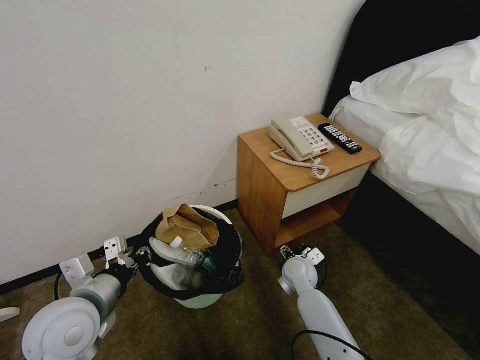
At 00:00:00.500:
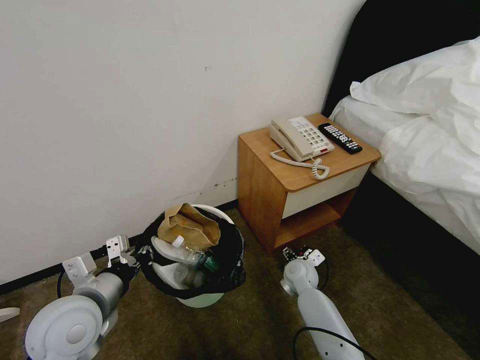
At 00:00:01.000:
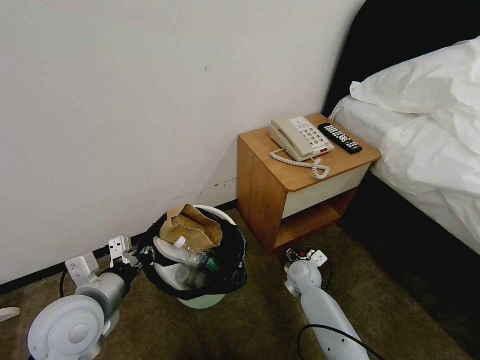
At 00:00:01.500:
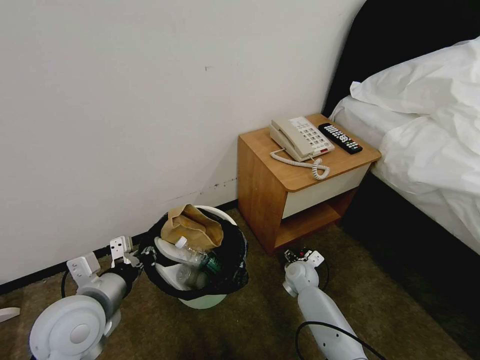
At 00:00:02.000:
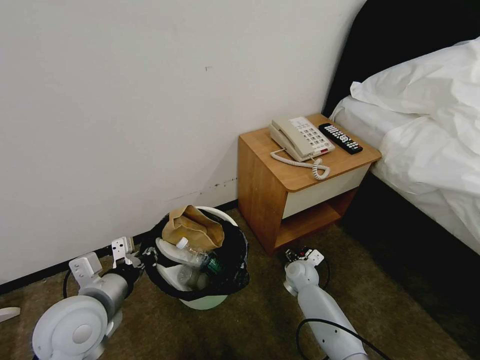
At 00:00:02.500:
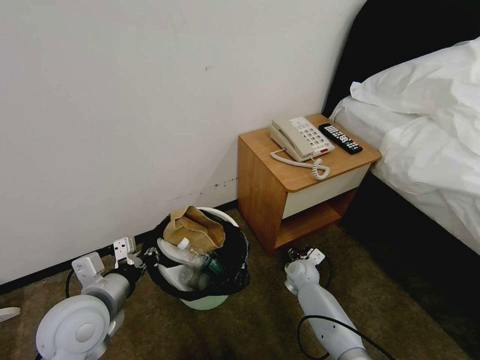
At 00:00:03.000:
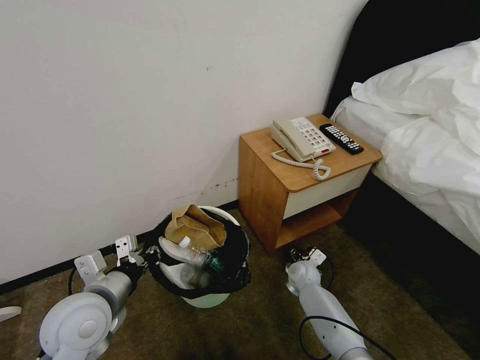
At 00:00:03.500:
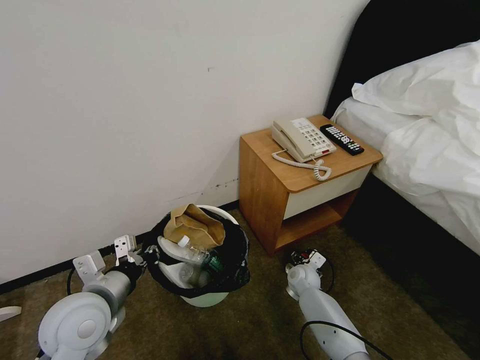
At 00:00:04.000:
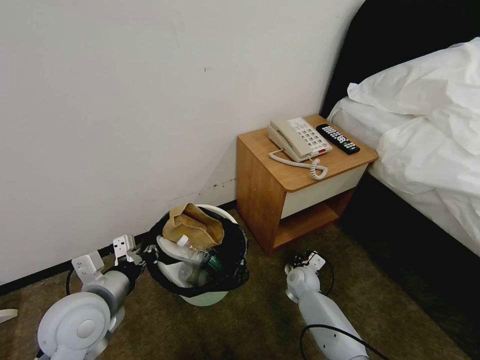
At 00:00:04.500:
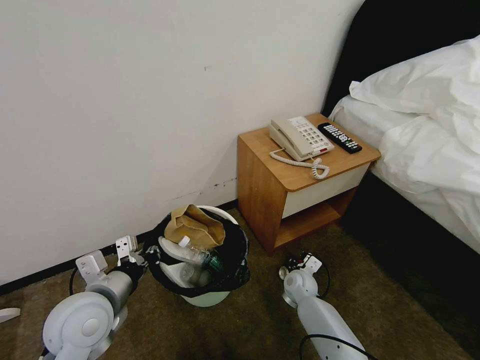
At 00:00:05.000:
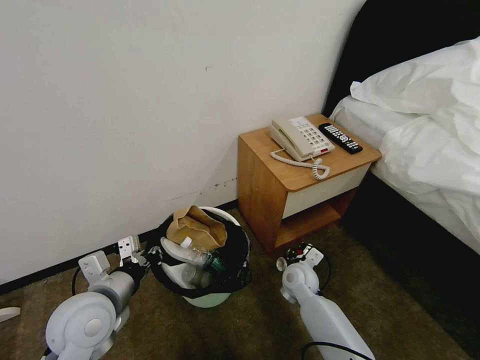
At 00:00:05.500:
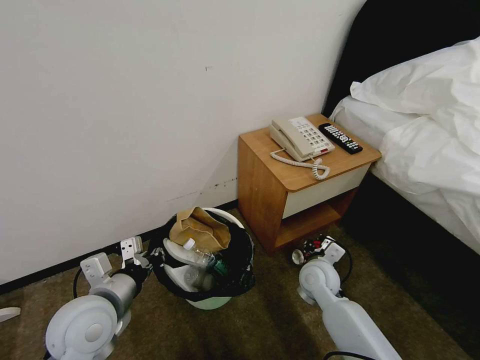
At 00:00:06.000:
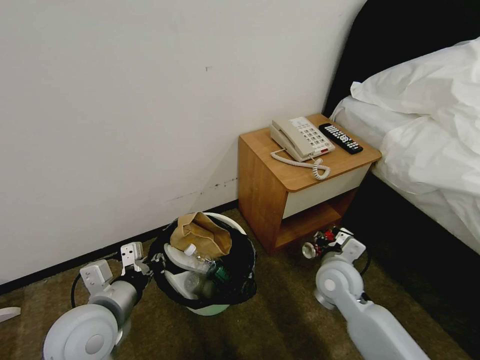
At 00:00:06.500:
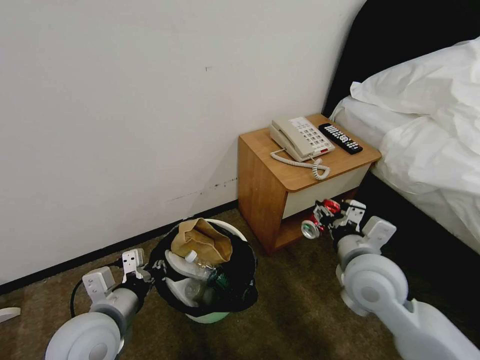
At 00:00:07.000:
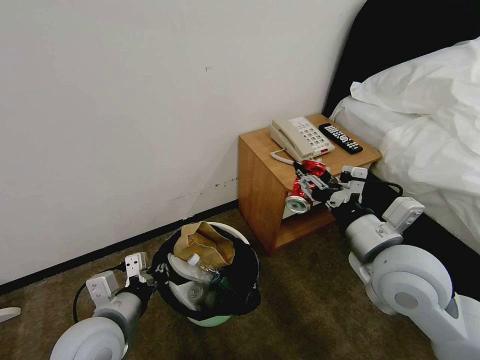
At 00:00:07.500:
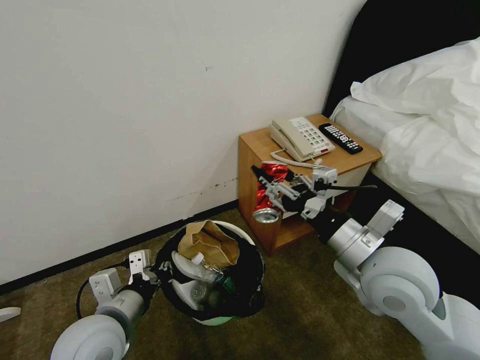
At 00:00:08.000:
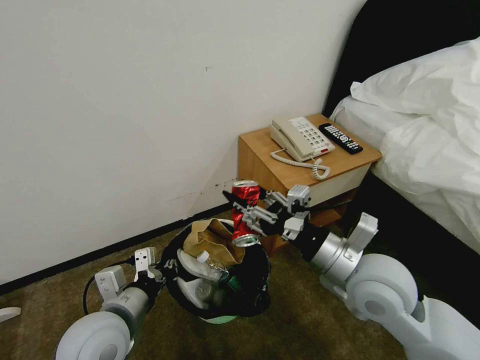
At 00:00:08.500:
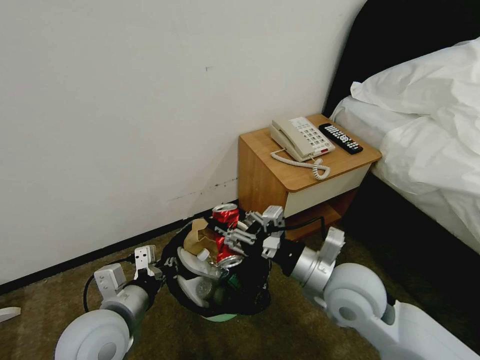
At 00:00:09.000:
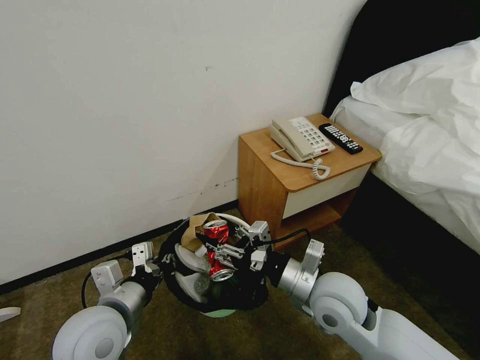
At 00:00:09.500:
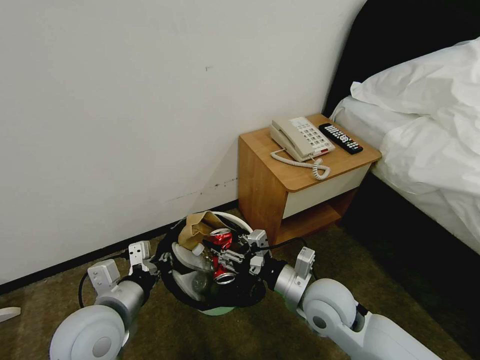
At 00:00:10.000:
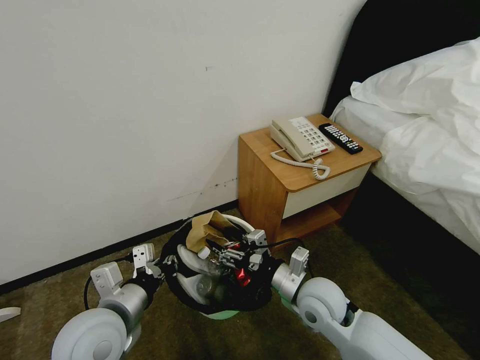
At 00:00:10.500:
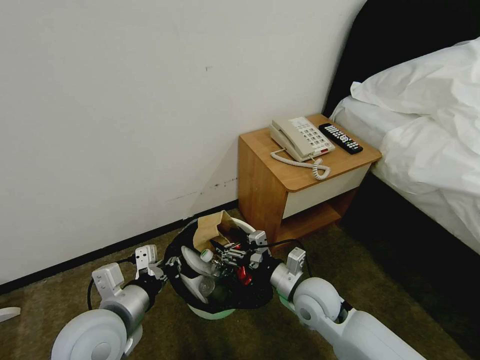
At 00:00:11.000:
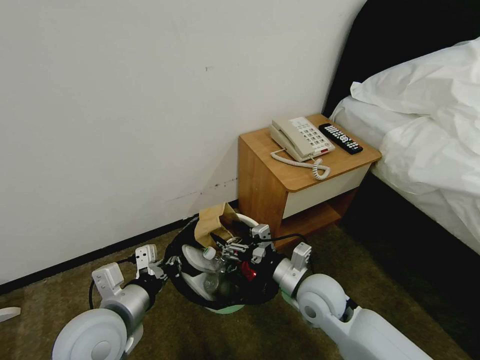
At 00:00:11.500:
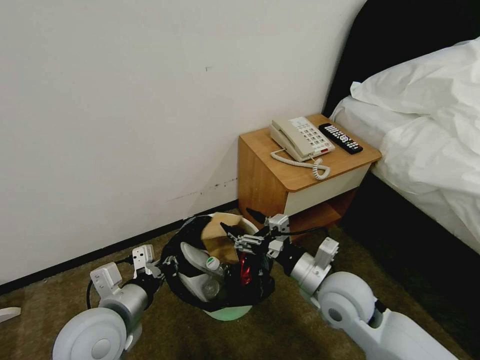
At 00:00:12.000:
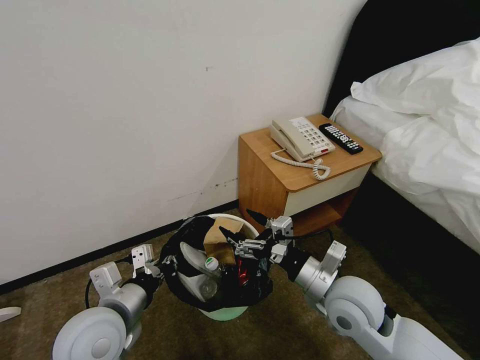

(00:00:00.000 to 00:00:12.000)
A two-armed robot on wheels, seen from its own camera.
Task of the whole recording: Pick up the trash bin, then pick up the garbage from the floor and place it into the trash bin.
00:00:00.000 - 00:00:02.000: The right gripper is displaced downward by roughly 5 cm.
00:00:02.000 - 00:00:04.000: The right gripper closes up.
00:00:04.000 - 00:00:06.000: The right gripper is displaced upward and backward by roughly 20 cm.
00:00:06.000 - 00:00:08.000: The right gripper travels upward and backward by roughly 15 cm.
00:00:08.000 - 00:00:10.000: The right gripper is displaced downward by about 15 cm.
00:00:10.000 - 00:00:12.000: The right gripper moves upward, approximately 5 cm.

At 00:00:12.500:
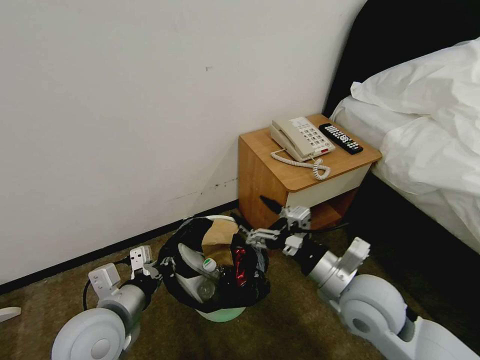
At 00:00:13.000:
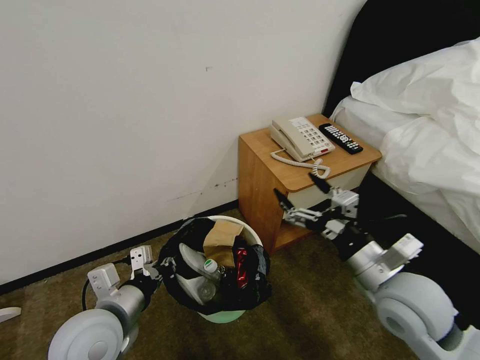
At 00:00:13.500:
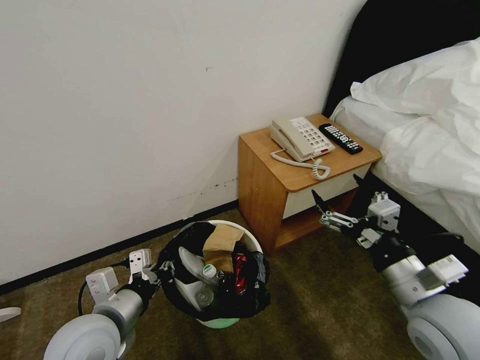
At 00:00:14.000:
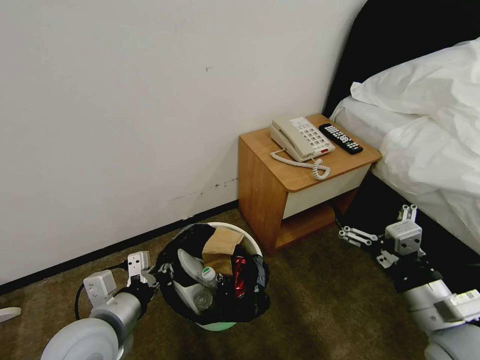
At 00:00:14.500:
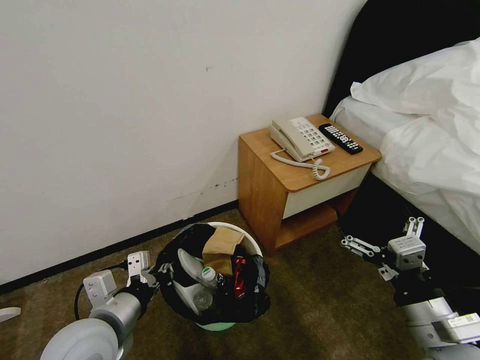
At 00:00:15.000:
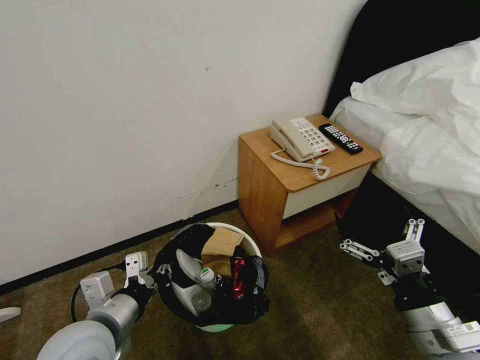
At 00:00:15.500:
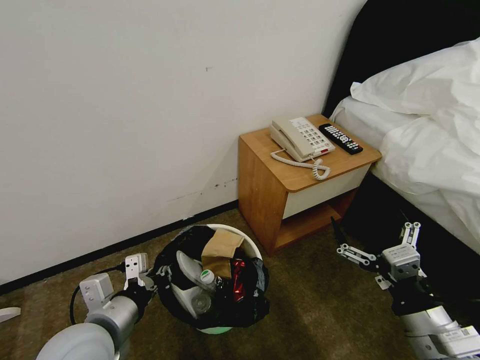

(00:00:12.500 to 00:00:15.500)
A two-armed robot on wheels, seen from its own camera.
Task of the whole recording: Pick up the trash bin, then pick up the garbage from the floor and place it into the trash bin.
00:00:12.500 - 00:00:14.000: The right gripper is displaced to the right and backward by approximately 15 cm.
00:00:14.000 - 00:00:15.500: The grippers stay close to where they were, moving slightly.
